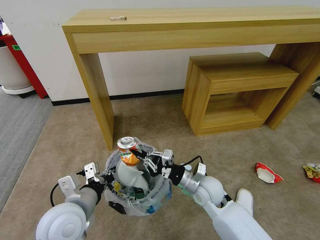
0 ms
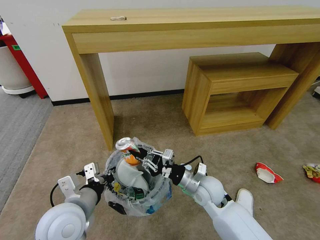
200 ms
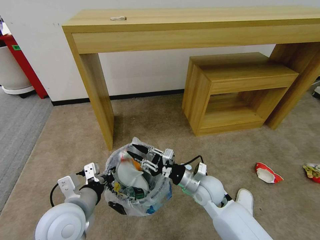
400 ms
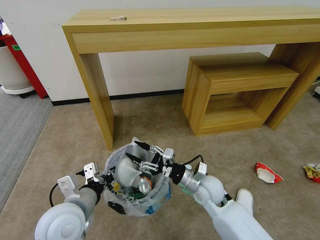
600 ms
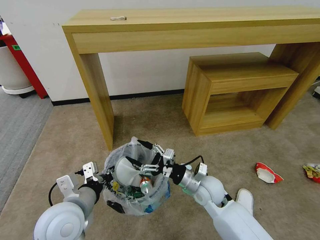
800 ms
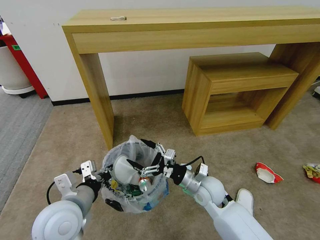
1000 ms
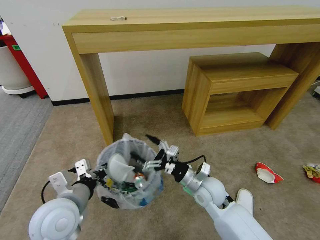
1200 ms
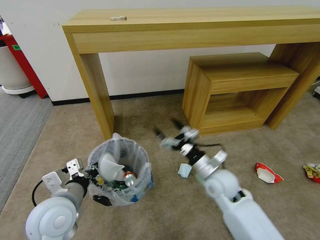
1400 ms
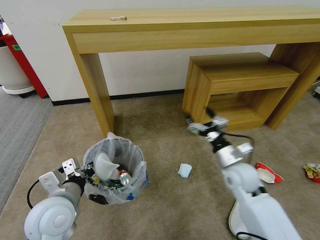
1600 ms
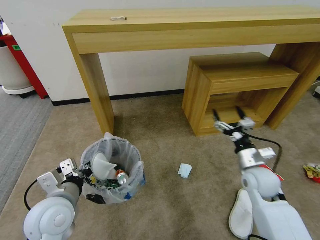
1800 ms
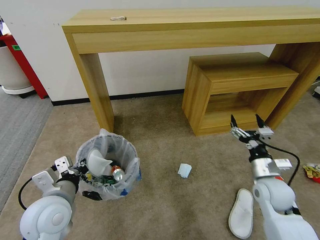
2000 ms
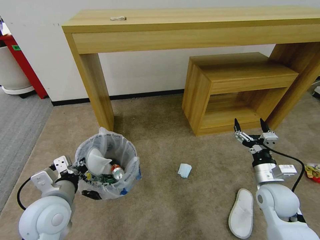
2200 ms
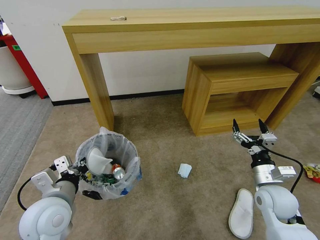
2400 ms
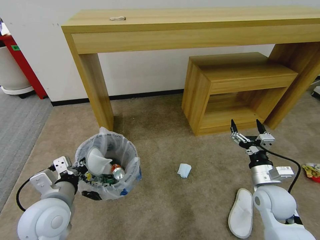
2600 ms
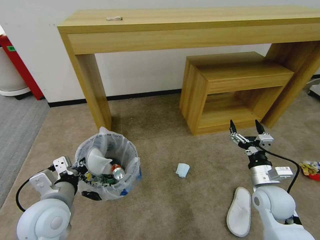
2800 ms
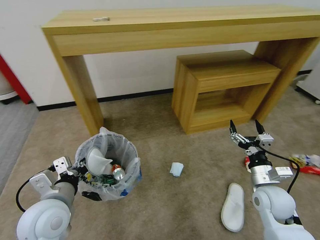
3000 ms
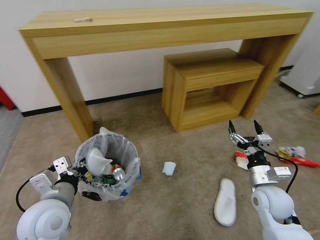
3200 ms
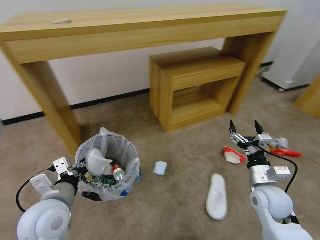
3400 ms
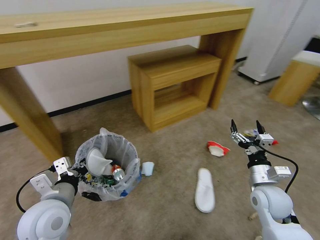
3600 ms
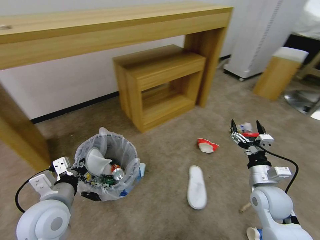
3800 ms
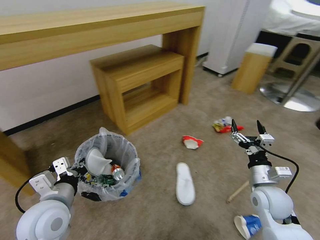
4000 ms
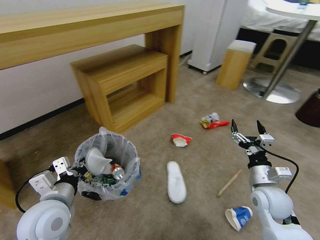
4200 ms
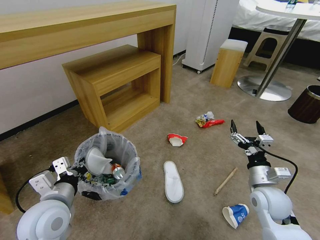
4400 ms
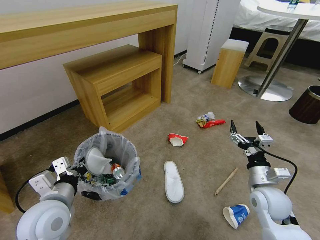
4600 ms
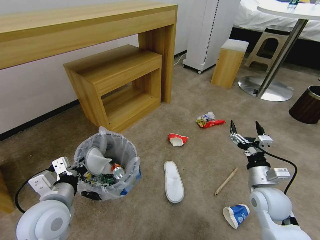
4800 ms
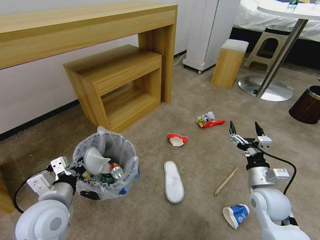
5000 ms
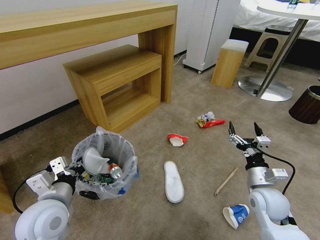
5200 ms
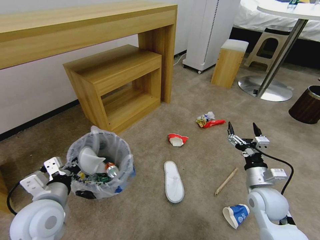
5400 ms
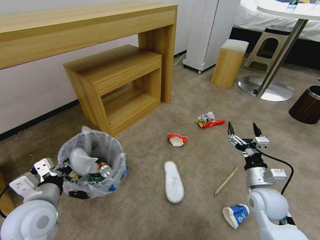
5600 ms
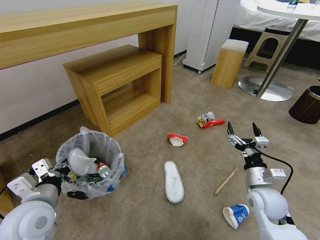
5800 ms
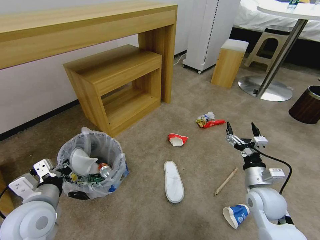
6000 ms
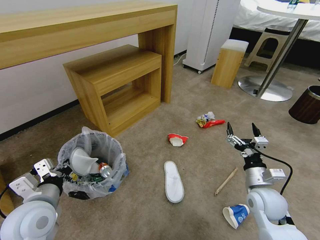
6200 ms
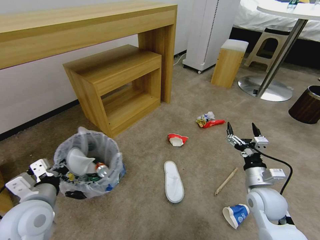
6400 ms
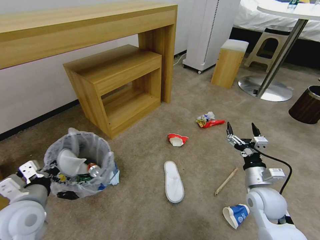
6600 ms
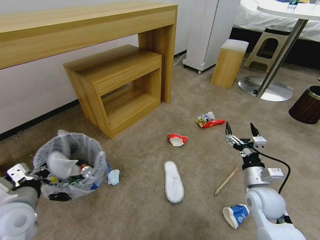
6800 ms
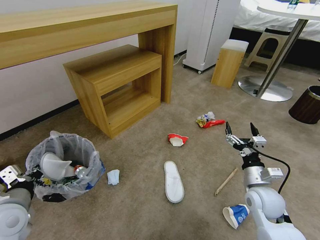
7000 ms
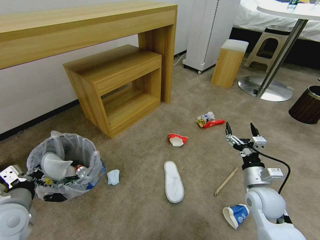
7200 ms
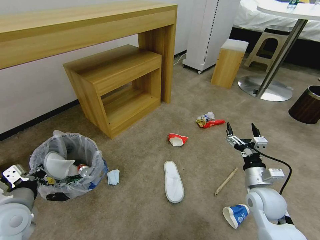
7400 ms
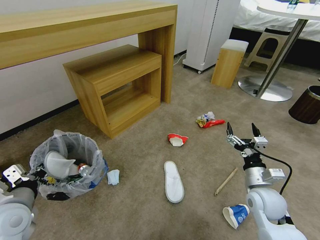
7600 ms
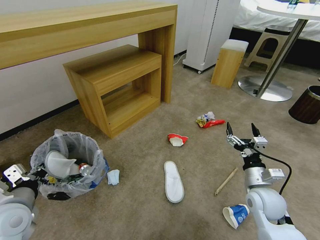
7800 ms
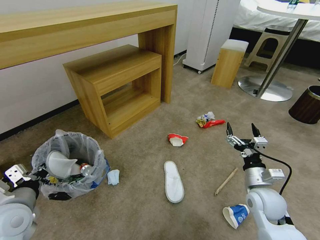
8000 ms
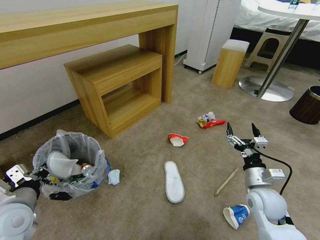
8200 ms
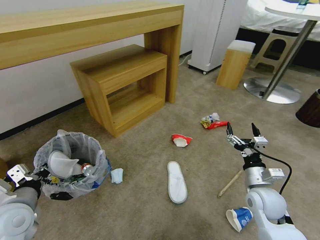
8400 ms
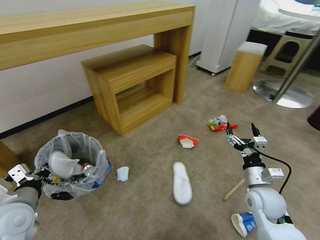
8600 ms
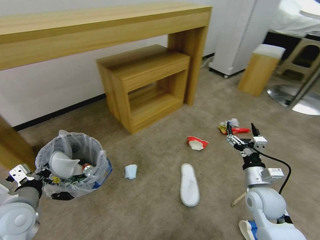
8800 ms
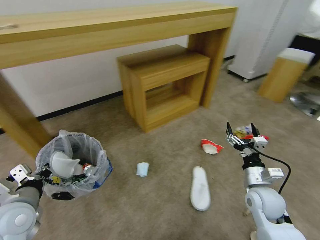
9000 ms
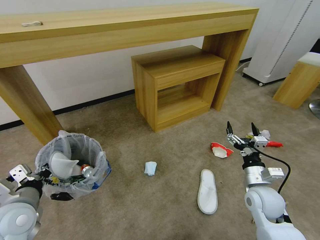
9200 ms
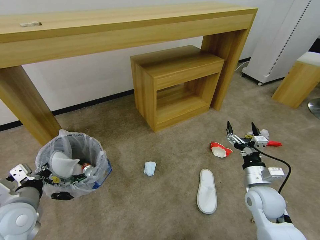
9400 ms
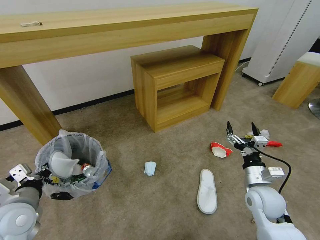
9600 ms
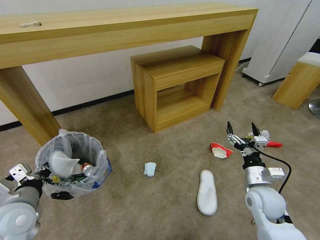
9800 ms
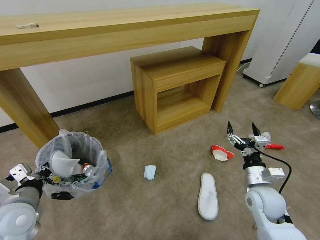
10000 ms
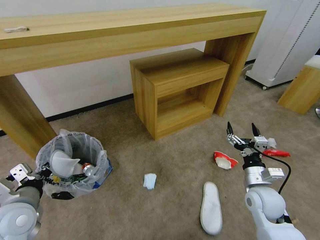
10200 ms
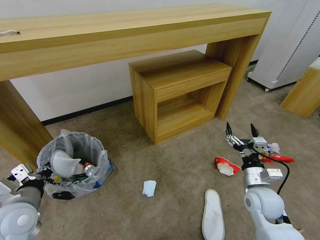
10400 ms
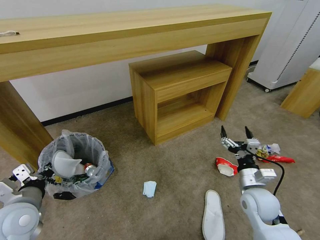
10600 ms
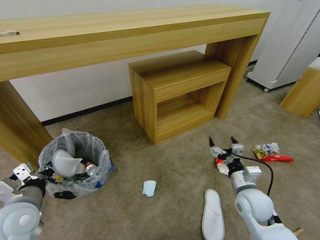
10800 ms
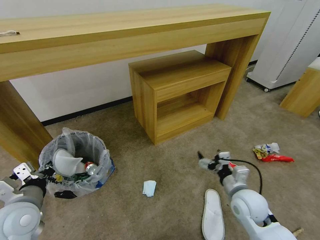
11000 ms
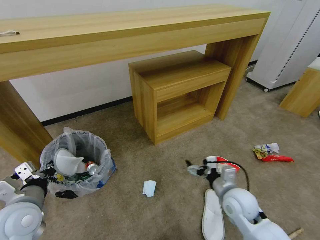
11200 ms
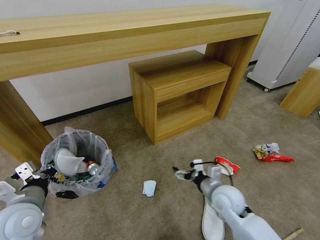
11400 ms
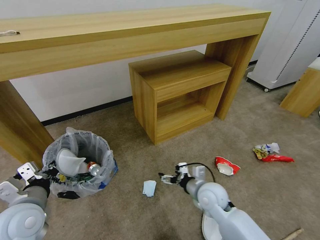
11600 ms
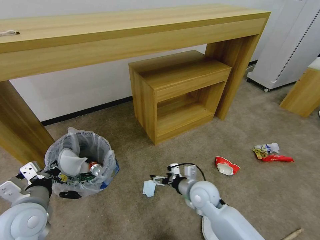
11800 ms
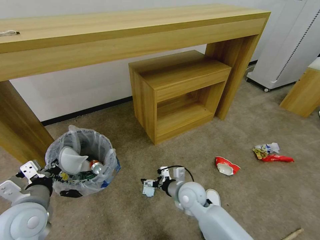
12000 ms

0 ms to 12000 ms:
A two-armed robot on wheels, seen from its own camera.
Task of the whole recording: Pick up the trash bin and place the garbage on the floor into it.
0 ms to 1600 ms: The right gripper is displaced to the right by roughly 10 cm, and opens.
1600 ms to 3000 ms: The right gripper shifts roughly 10 cm to the right and backward.
4400 ms to 6000 ms: There are only small adjustments of the grippers.
6000 ms to 7600 ms: The left gripper is displaced to the left by approximately 5 cm.
10400 ms to 12000 ms: The right gripper moves to the left, approximately 20 cm.

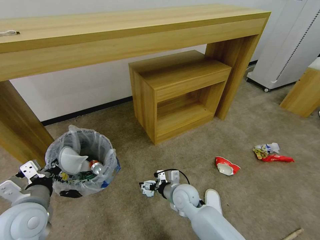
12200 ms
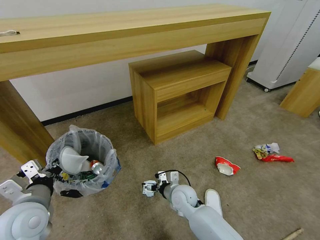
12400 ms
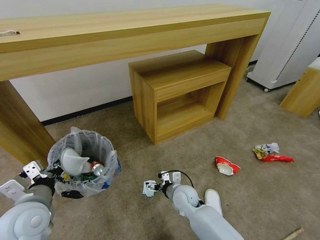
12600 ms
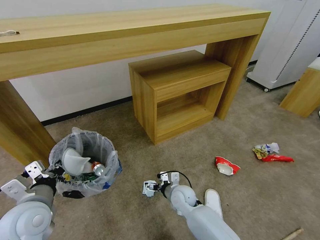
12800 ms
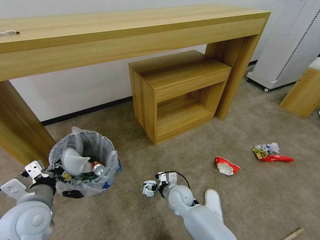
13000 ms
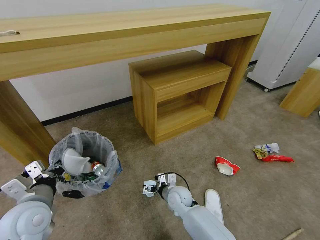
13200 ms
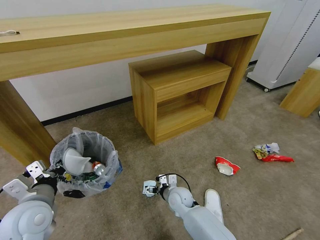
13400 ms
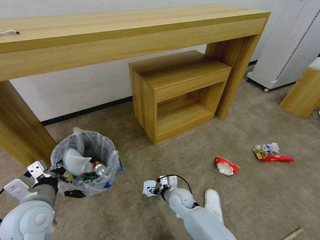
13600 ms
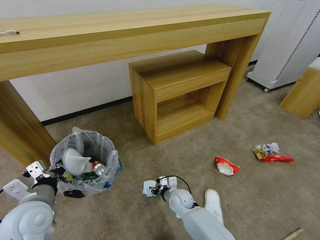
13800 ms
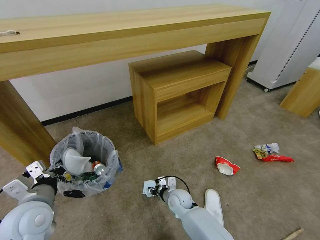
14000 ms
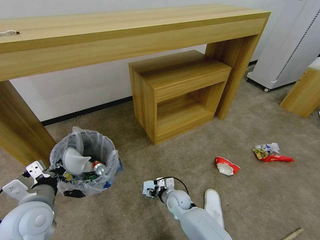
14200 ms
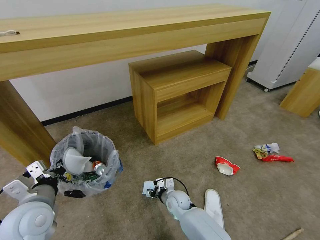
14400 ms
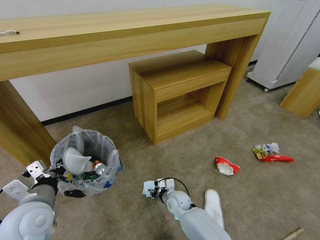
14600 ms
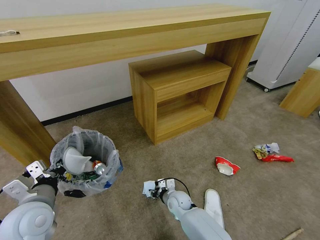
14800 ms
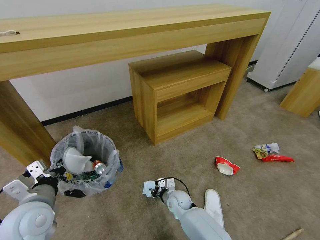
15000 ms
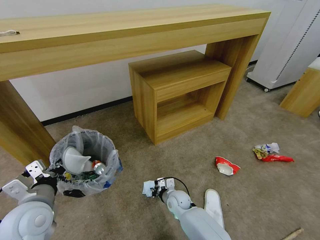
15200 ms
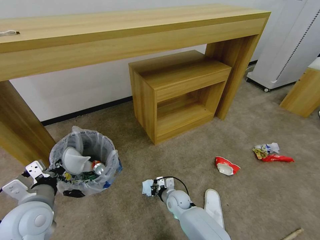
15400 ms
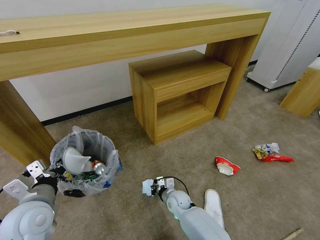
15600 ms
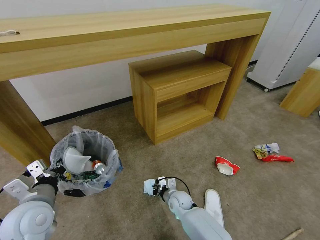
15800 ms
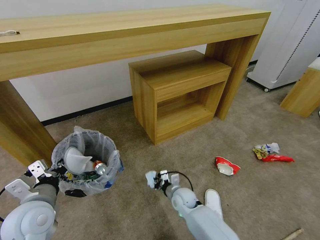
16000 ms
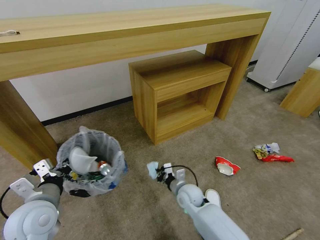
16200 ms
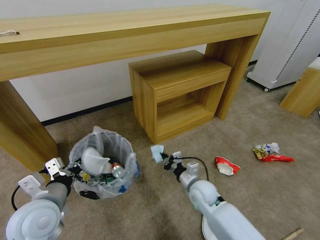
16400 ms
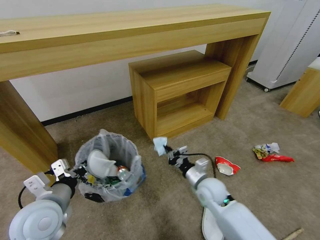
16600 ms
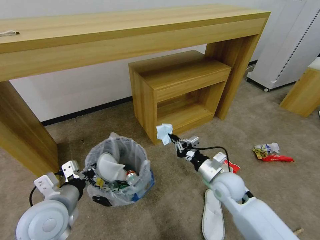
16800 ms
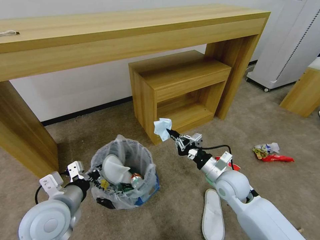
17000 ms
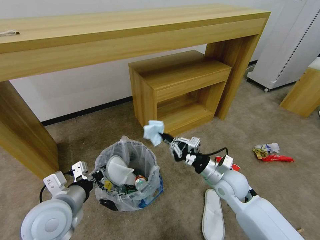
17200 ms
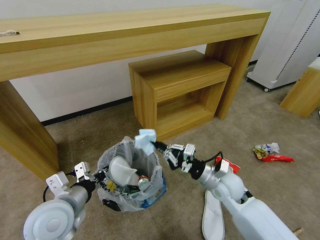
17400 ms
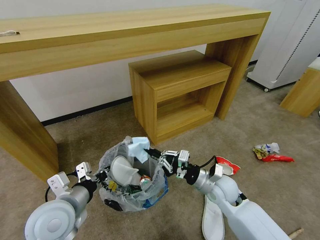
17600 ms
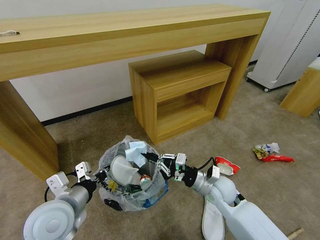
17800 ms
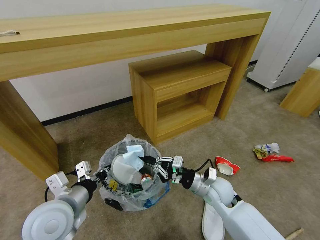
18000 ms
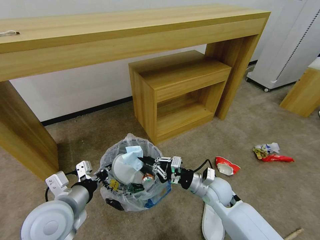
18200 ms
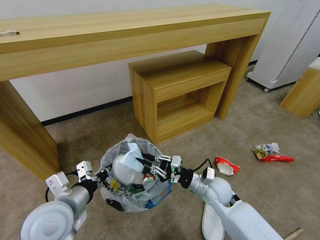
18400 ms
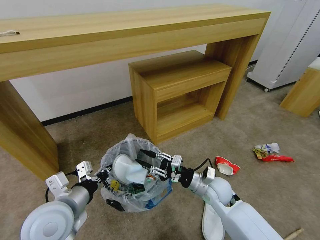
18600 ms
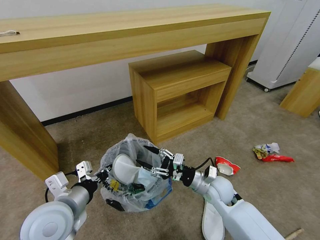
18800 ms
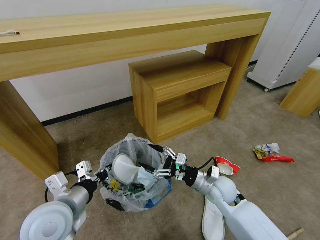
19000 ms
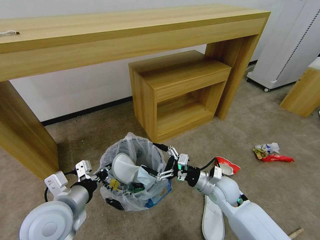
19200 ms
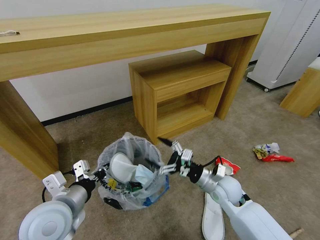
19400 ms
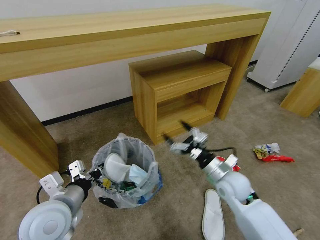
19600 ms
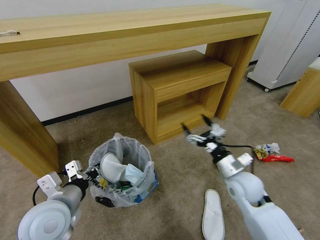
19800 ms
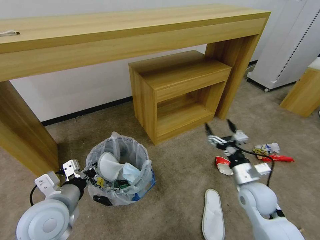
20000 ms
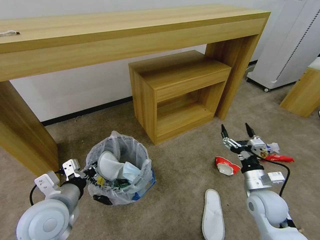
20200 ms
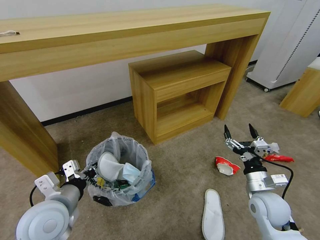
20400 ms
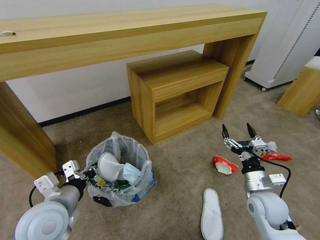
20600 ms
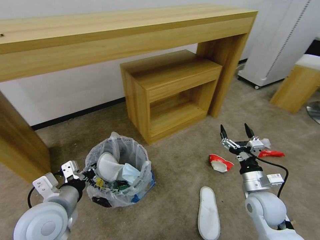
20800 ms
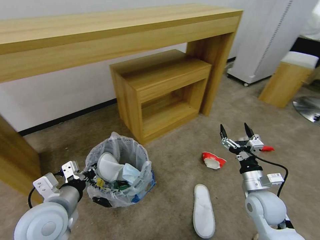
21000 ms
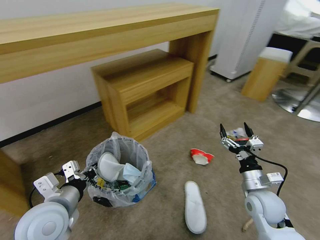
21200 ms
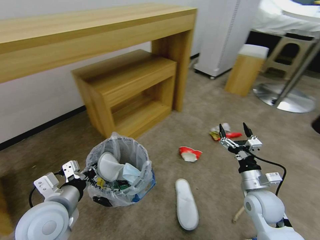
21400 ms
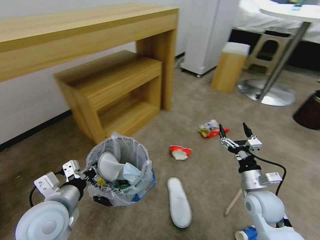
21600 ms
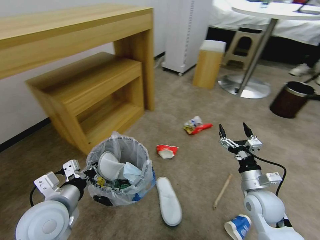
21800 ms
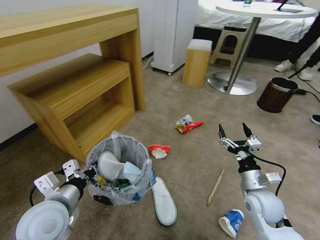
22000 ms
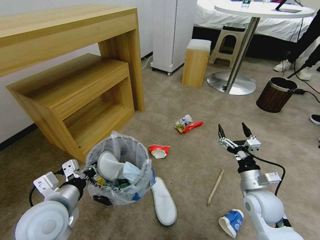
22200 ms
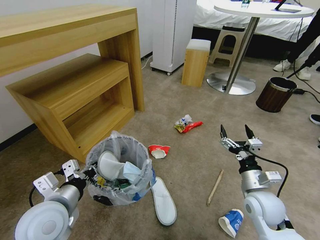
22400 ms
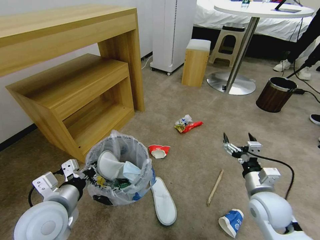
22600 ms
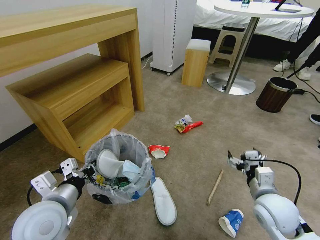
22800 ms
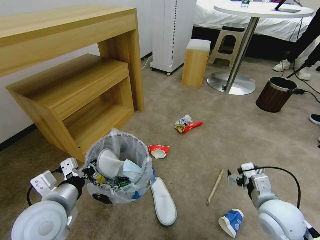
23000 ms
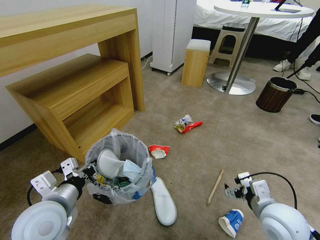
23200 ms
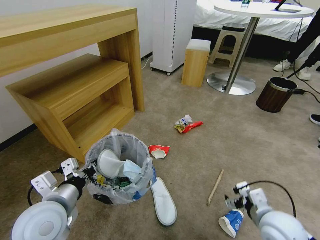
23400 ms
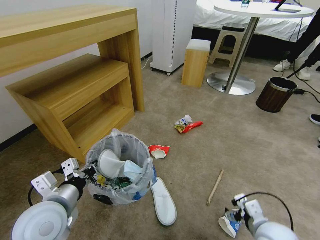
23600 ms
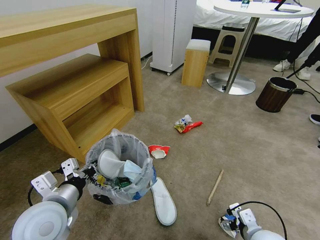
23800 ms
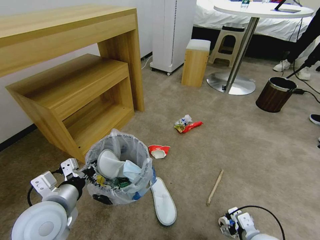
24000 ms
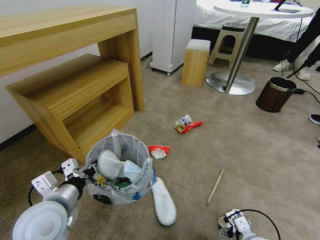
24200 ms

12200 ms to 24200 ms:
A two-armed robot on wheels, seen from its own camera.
Task of the whole recording: Pick up the trash bin and place the garbage on the floor into it.
12200 ms to 13800 ms: The right gripper is displaced downward by some 10 cm, and closes up.
13800 ms to 15200 ms: The right gripper closes up.
15200 ms to 16600 ms: The right gripper is displaced upward and to the right by roughly 20 cm.
18200 ms to 19800 ms: The right gripper travels to the right and upward by approximately 10 cm, and opens up.
19800 ms to 21200 ms: The right gripper ends up about 5 cm from where it was.
22600 ms to 24200 ms: The right gripper moves downward and backward, roughly 15 cm.
